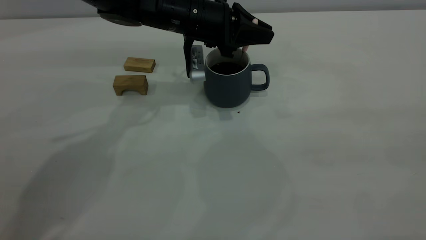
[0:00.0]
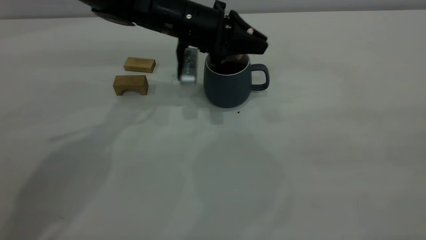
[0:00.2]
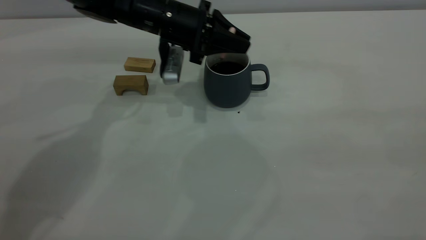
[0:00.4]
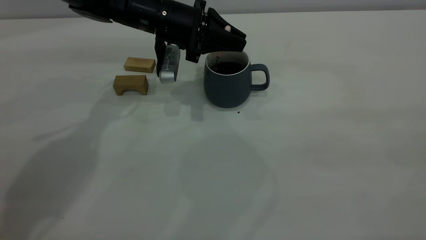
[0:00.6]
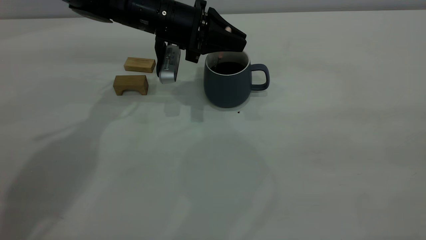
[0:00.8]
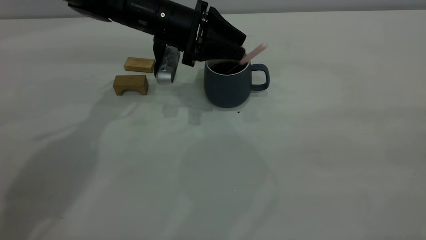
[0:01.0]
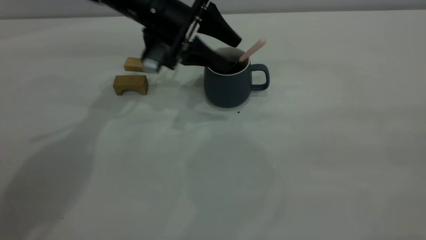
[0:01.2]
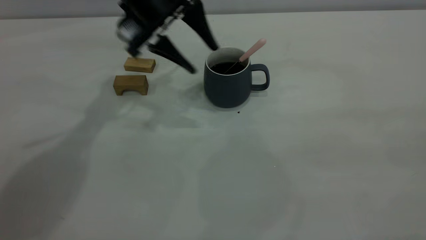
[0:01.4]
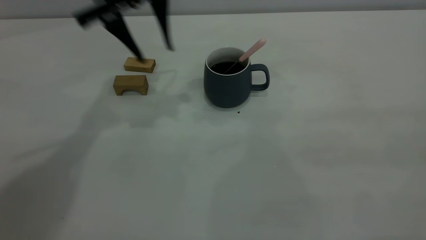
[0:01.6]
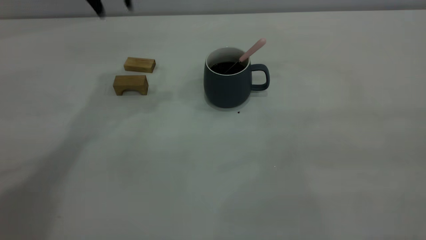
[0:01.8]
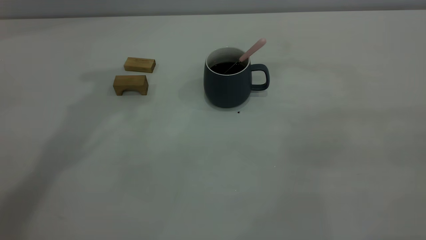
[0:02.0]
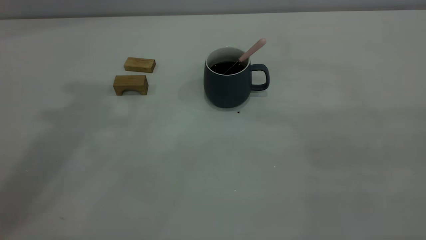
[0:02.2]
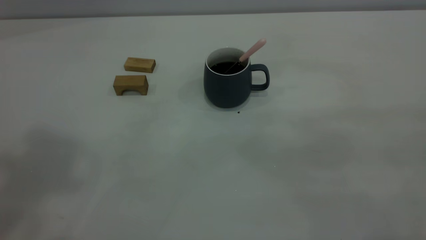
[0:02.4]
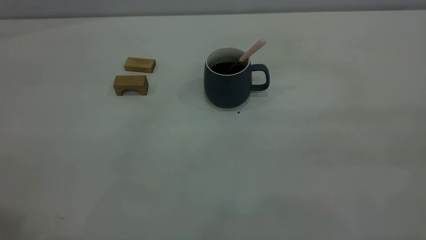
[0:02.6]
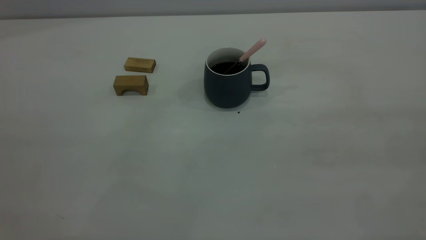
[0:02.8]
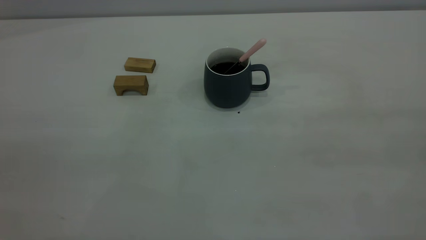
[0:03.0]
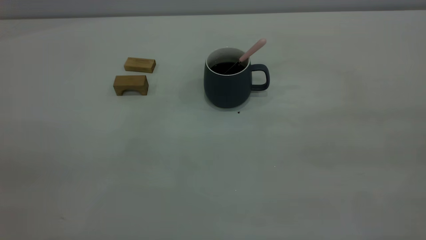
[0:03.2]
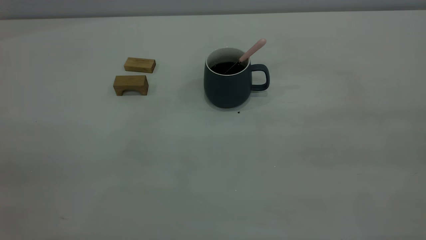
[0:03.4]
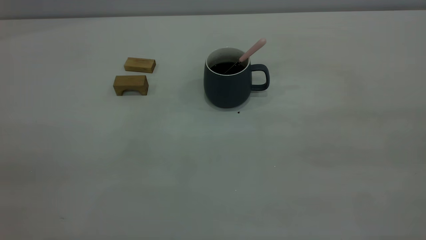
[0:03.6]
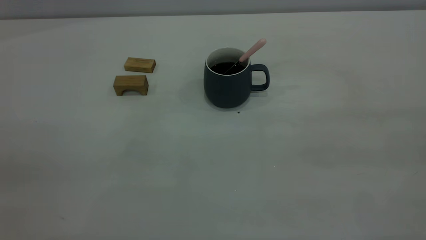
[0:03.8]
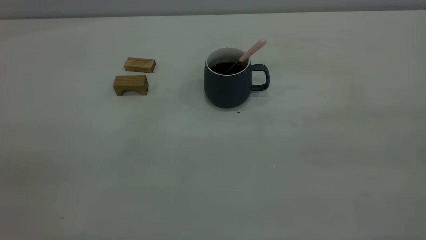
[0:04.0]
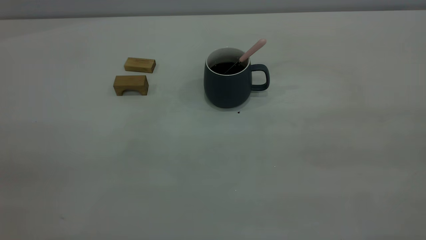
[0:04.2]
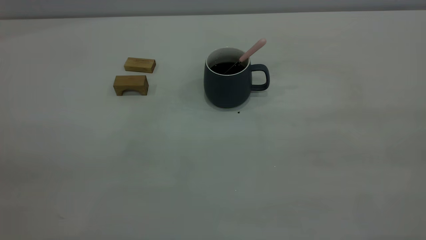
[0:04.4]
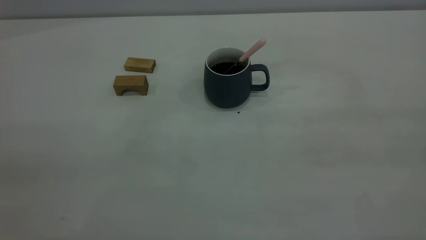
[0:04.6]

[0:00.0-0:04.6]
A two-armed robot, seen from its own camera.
0:00.0 to 0:01.6: The left gripper moves upward and to the left, some 15 cm, and opens its fingers.
0:01.6 to 0:03.0: The left gripper travels backward by approximately 40 cm.
